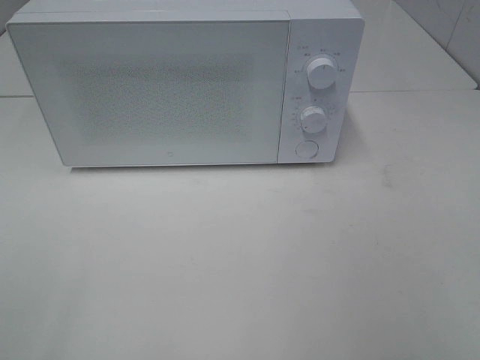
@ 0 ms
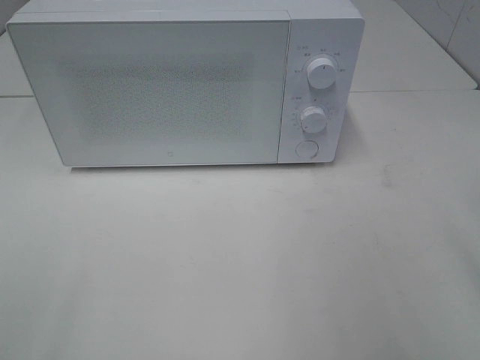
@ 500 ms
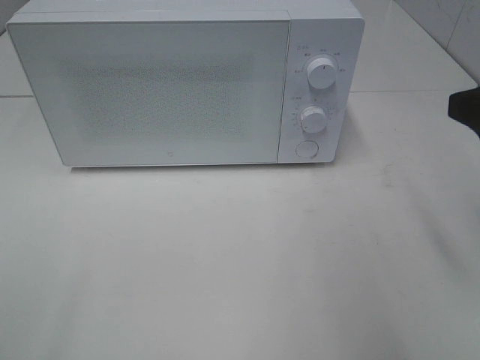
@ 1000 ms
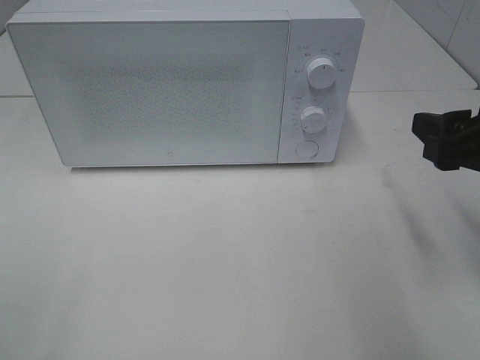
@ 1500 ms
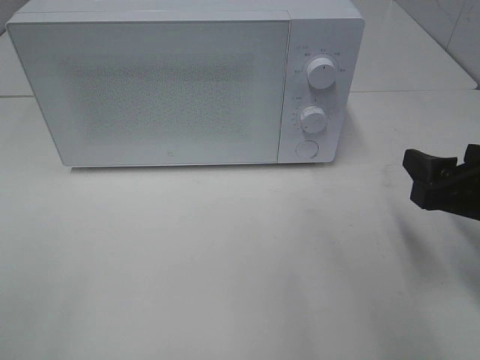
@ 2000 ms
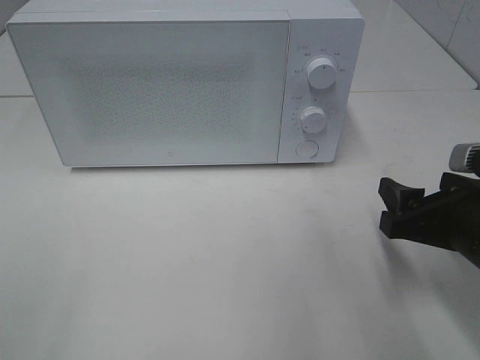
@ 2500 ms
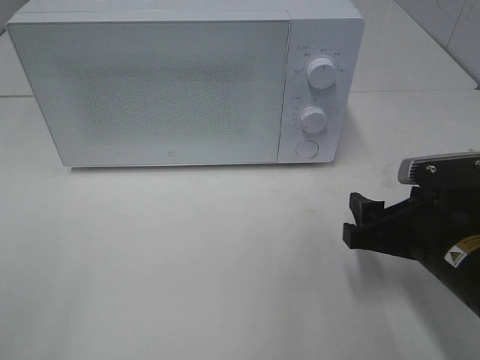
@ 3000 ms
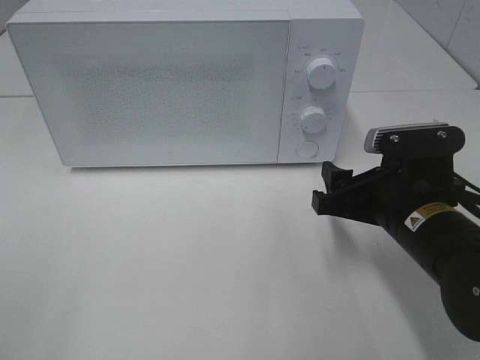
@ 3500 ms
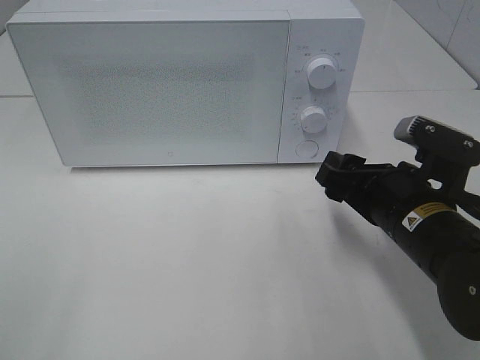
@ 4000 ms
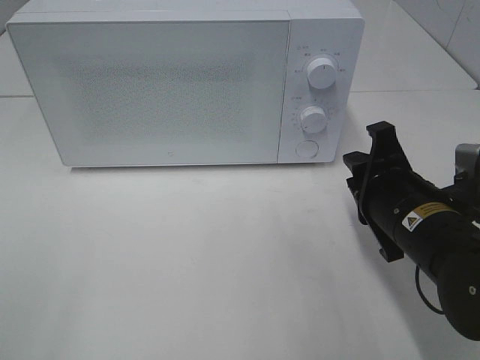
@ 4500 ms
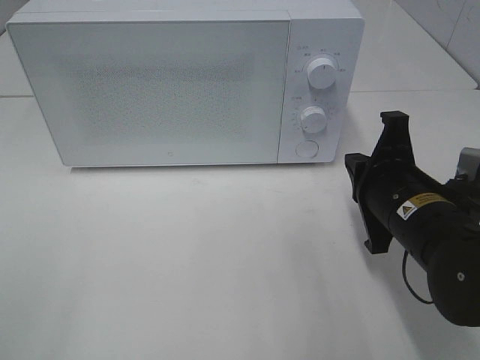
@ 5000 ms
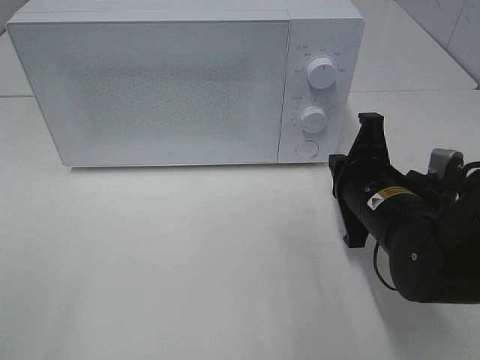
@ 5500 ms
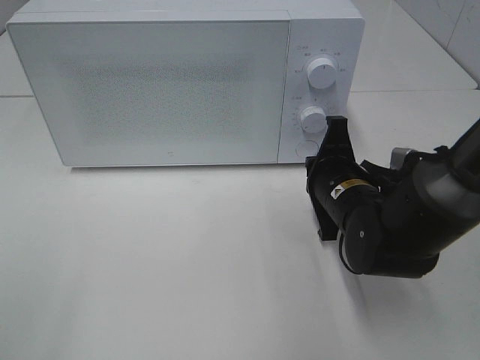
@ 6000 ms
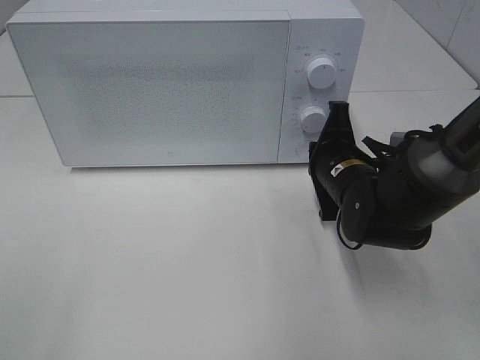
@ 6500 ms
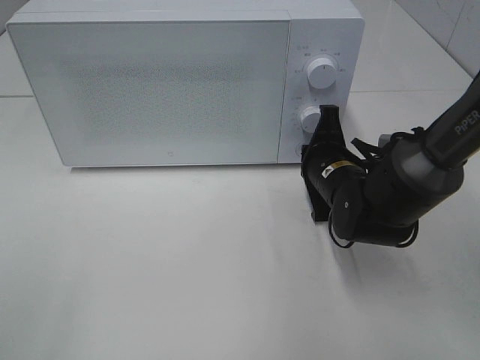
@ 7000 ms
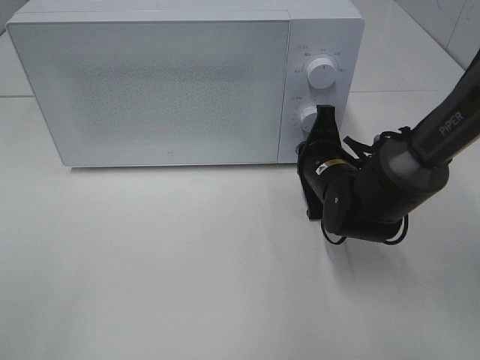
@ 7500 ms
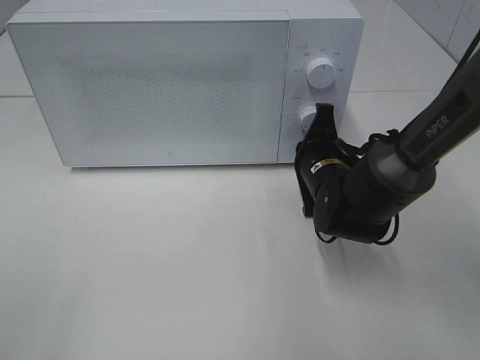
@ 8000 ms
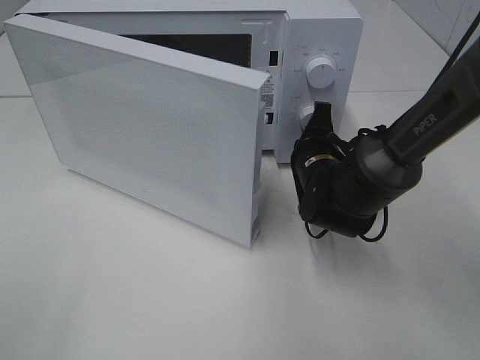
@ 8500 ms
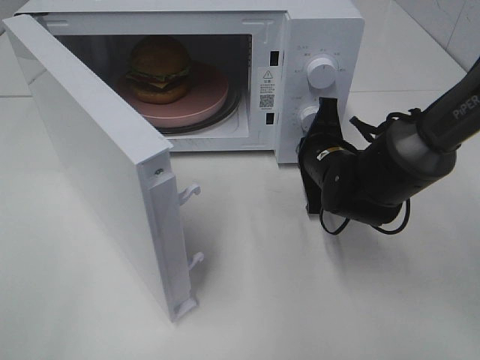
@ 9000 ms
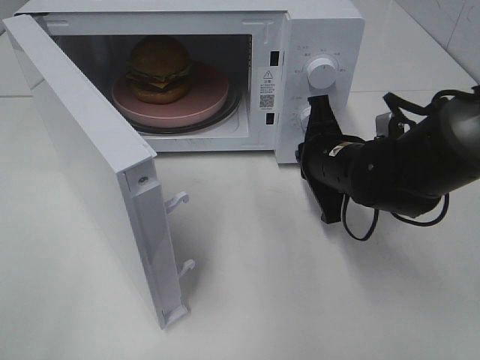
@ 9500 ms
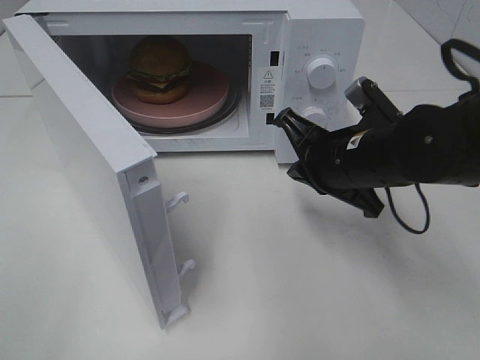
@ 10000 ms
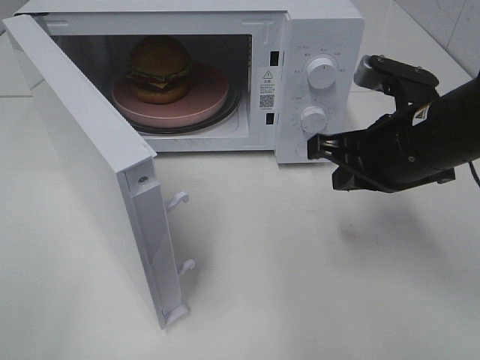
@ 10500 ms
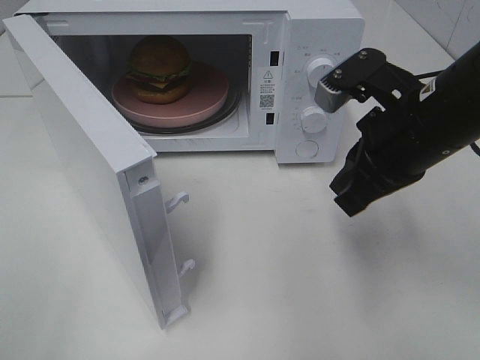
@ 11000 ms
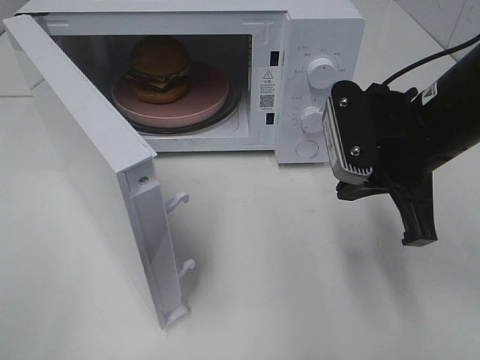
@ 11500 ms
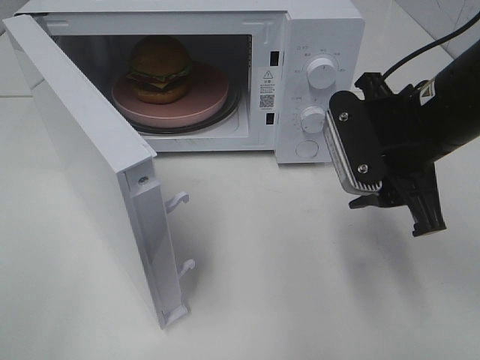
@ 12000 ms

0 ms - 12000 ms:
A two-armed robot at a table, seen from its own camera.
Task of the whole recording: Heat the burger.
Step, 0 ms - 9500 ms: Right hand: press the switch.
0 ms - 2000 ms: The right gripper is displaced forward and downward by about 20 cm.
2000 ms - 4000 ms: The right gripper travels to the left by some 10 cm.
4000 ms - 6000 ms: The right gripper is displaced forward by about 5 cm, and closes.
6000 ms - 8000 ms: The right gripper heads forward, covering about 5 cm.
8000 ms - 10000 ms: The right gripper shifts roughly 10 cm upward and backward.
10000 ms - 12000 ms: The right gripper shifts about 5 cm upward, and opens.

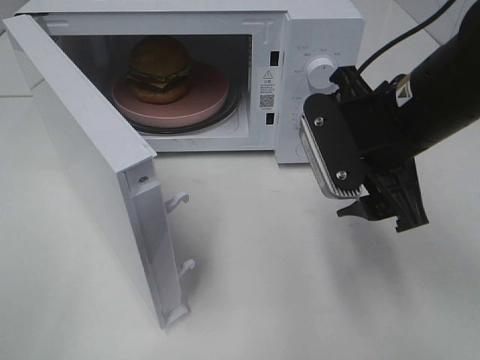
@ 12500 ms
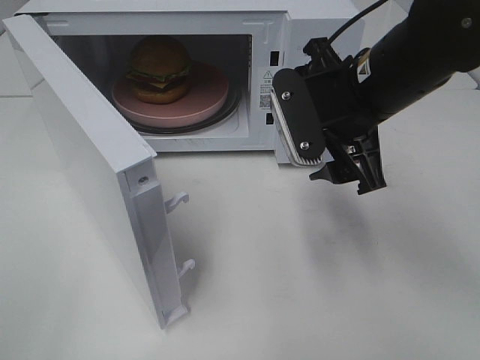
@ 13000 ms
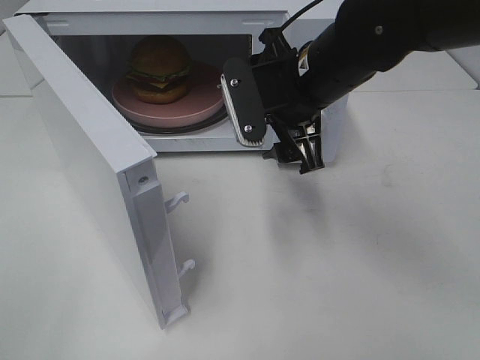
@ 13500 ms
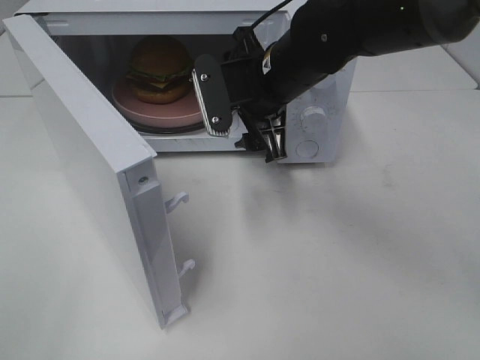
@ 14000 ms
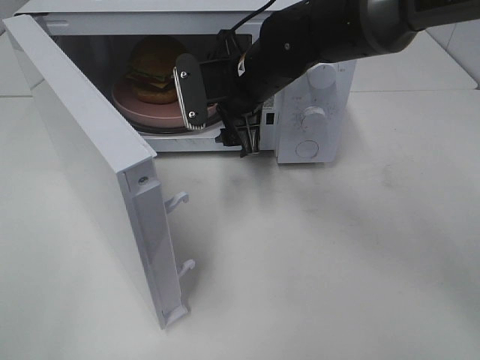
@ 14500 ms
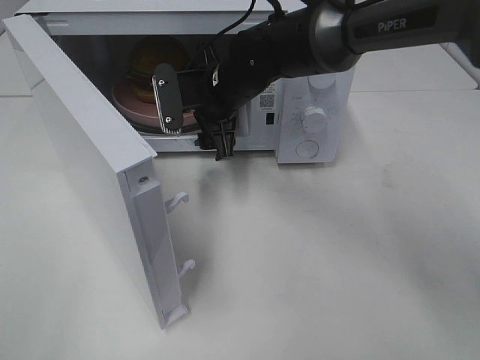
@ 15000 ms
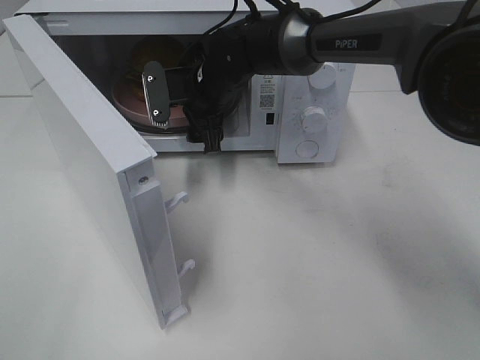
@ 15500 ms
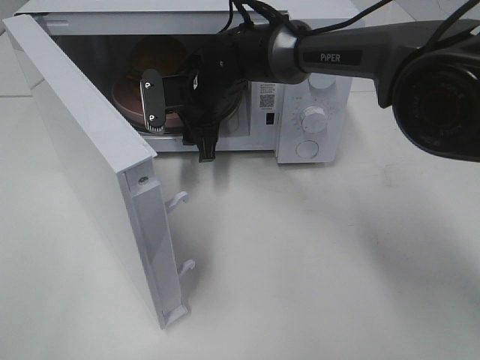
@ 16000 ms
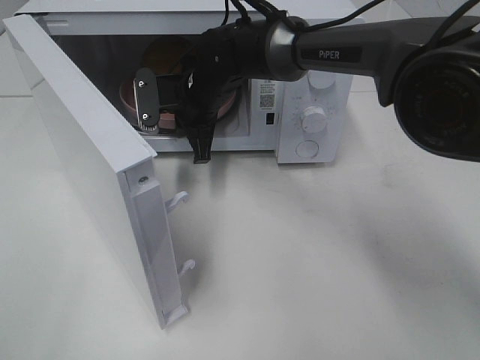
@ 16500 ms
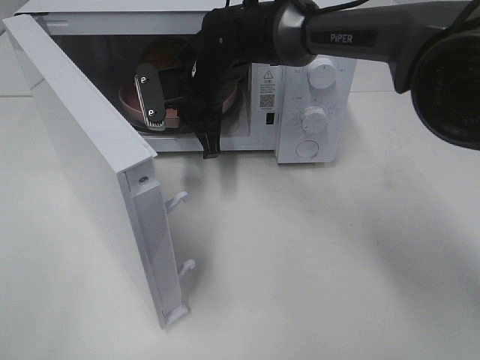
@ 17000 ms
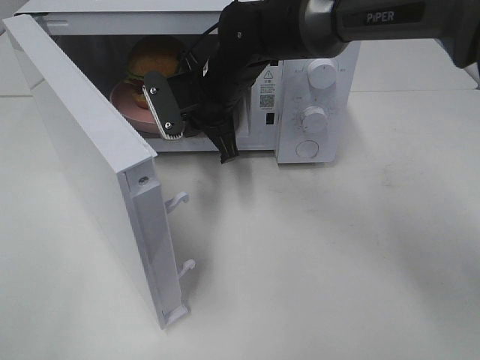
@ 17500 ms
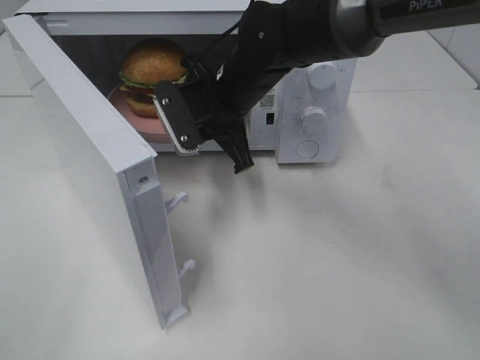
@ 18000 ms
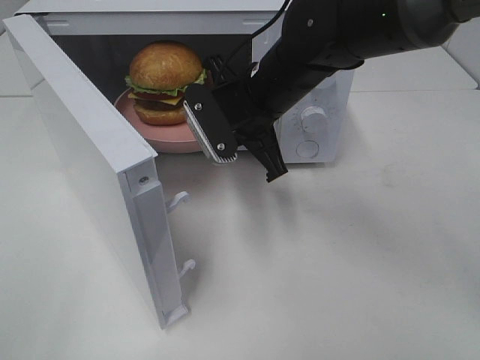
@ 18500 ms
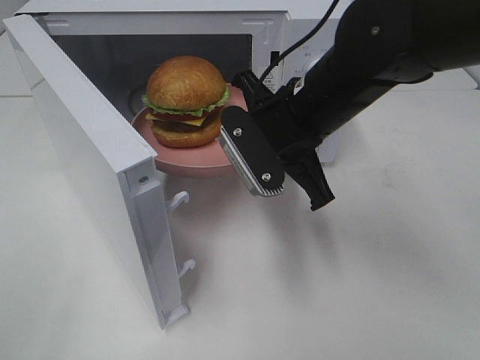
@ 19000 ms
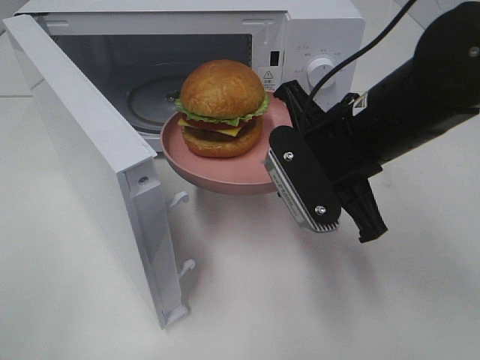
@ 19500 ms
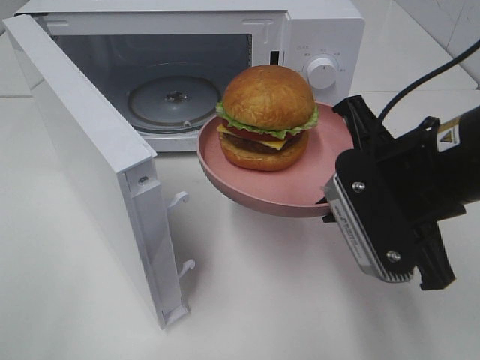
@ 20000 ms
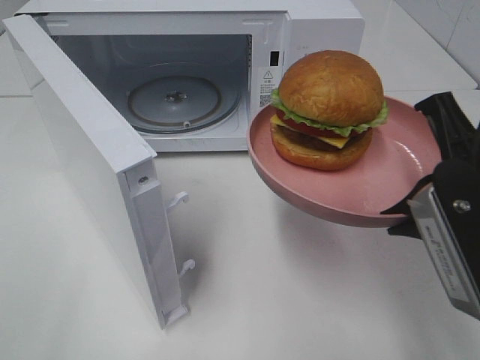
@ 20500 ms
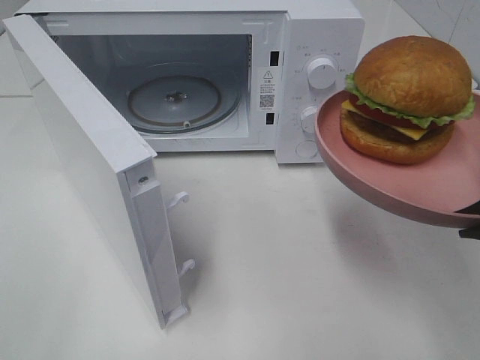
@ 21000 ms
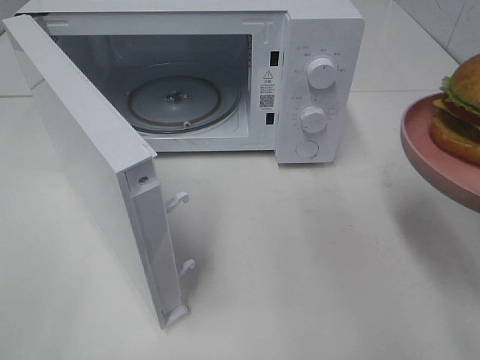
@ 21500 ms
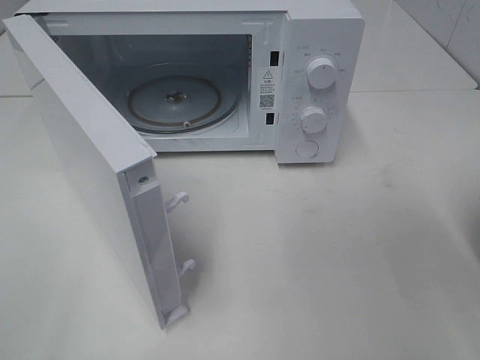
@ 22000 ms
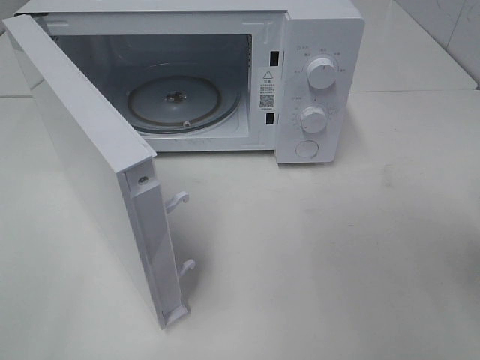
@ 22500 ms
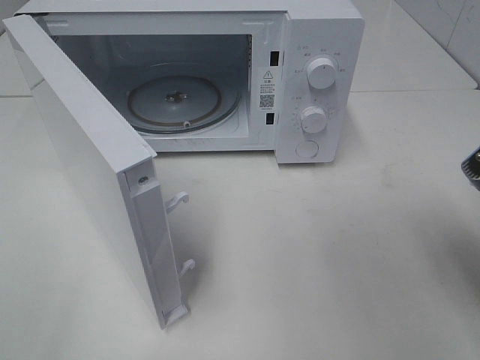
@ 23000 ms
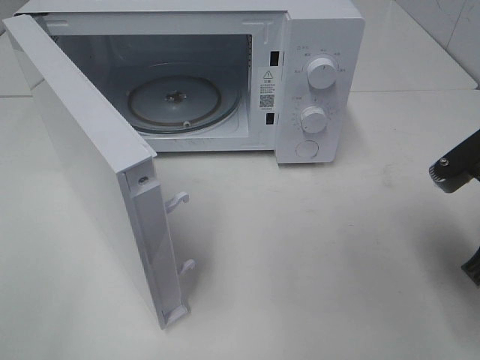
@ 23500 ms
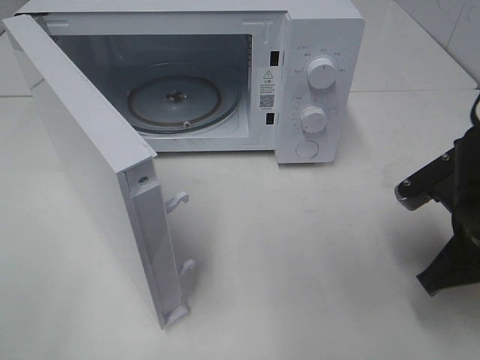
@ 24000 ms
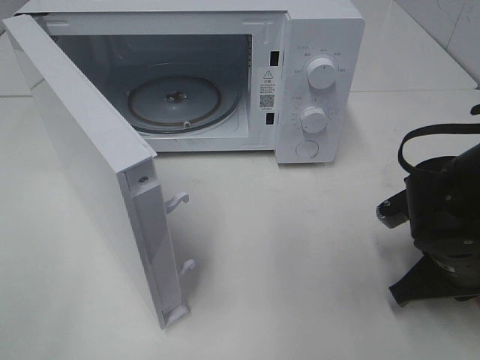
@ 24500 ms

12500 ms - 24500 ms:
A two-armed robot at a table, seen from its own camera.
Task of the whole recording: Heat the burger.
Step, 12500 ms - 16500 ms: Right hand: grab the plate with the hamburger.
12500 ms - 14500 ms: The right gripper goes about 20 cm forward and to the left.
14500 ms - 16500 ms: The right gripper goes about 10 cm to the left and forward, and closes its fingers.
16500 ms - 18500 ms: The right gripper goes some 15 cm backward, to the right and upward.
18500 ms - 20500 ms: The right gripper travels backward and to the right by roughly 25 cm.
20500 ms - 22500 ms: The right gripper is displaced to the right by about 10 cm.
22500 ms - 24500 ms: The right gripper heads downward, forward and to the left, covering some 20 cm.

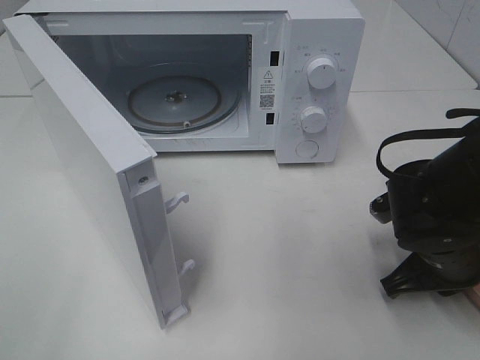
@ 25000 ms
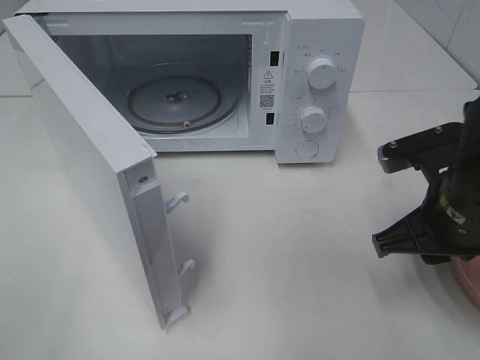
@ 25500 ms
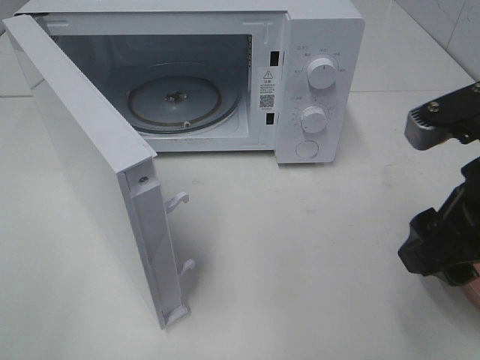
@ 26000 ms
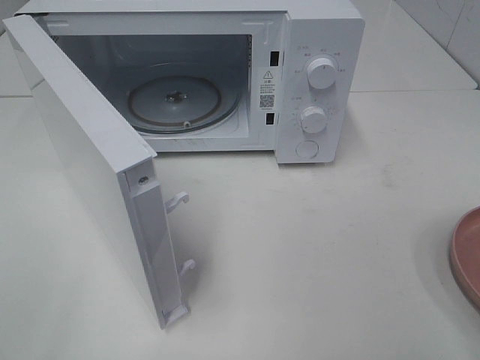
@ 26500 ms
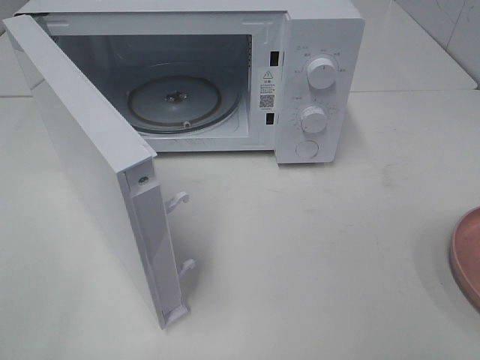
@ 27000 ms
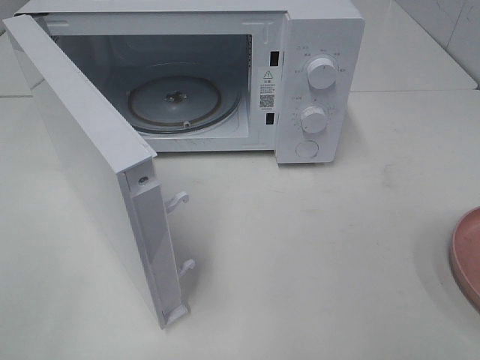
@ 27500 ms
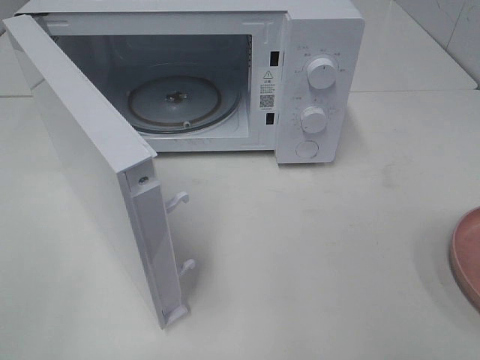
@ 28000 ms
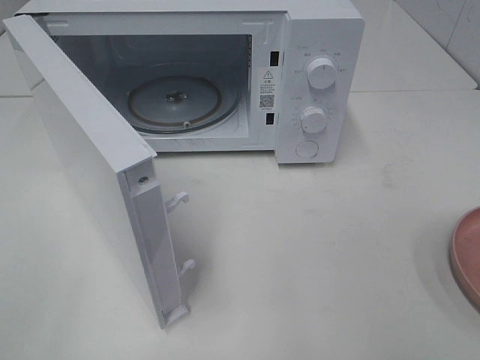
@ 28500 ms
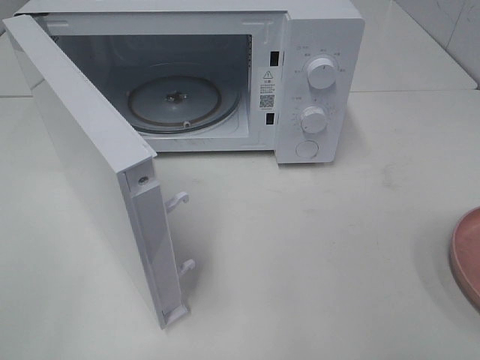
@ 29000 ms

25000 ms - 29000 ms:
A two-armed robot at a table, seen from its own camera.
Task of the whole recording: Heat the burger.
25000 ms - 27000 ms: The right gripper goes some 30 cm upward, backward and to the right, and opens.
